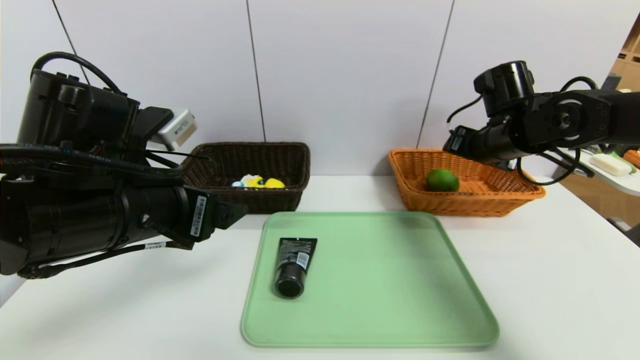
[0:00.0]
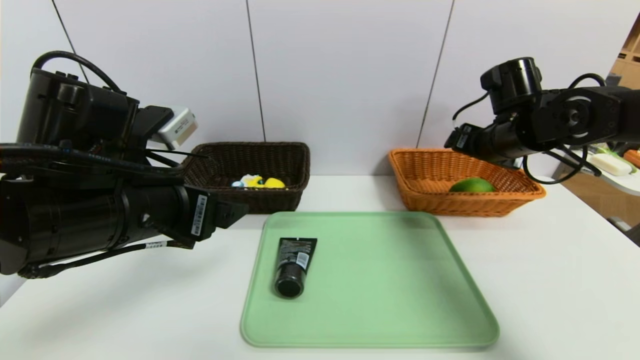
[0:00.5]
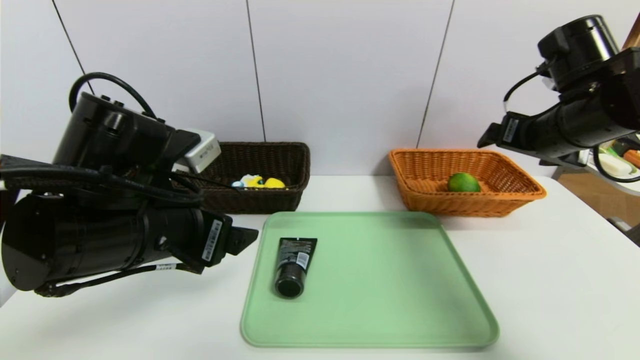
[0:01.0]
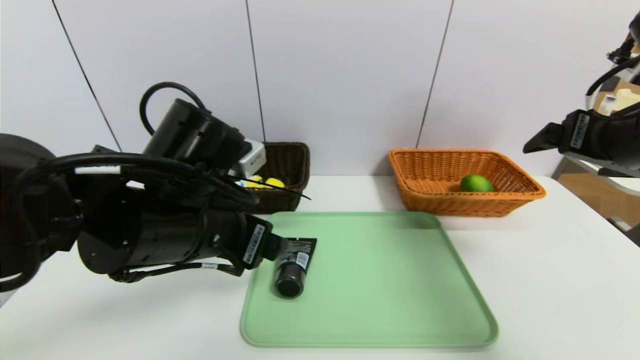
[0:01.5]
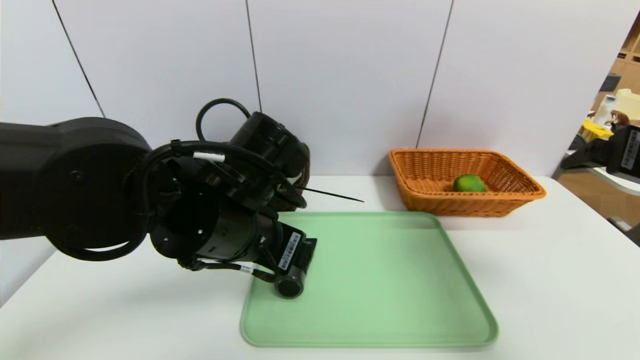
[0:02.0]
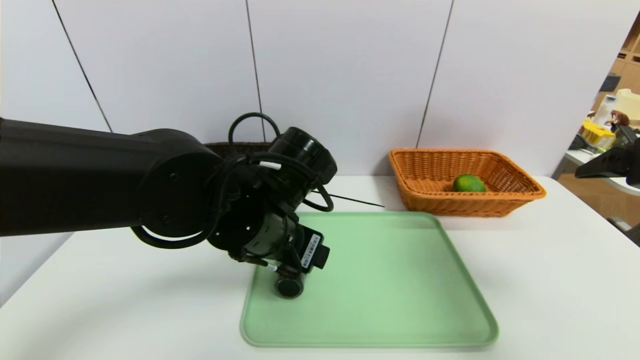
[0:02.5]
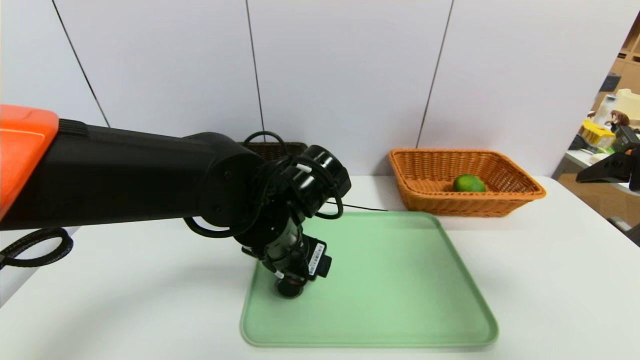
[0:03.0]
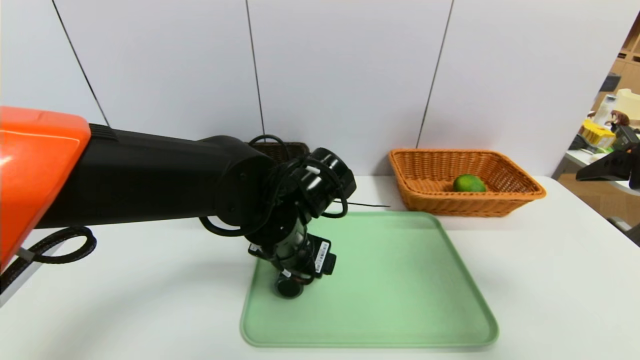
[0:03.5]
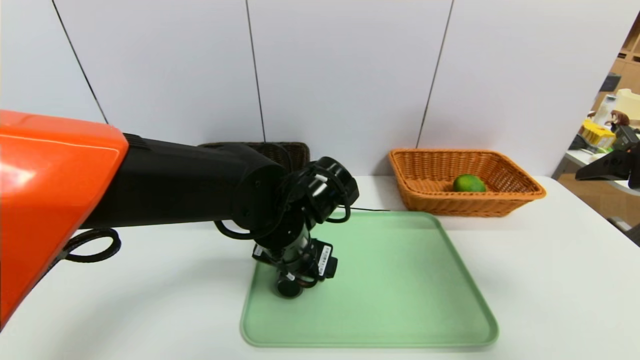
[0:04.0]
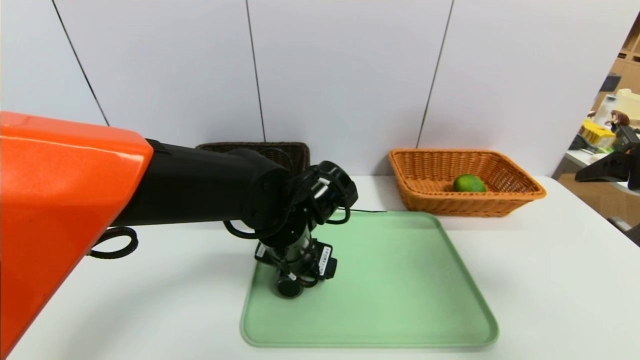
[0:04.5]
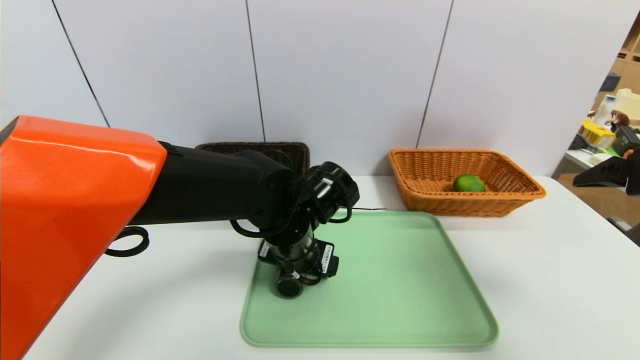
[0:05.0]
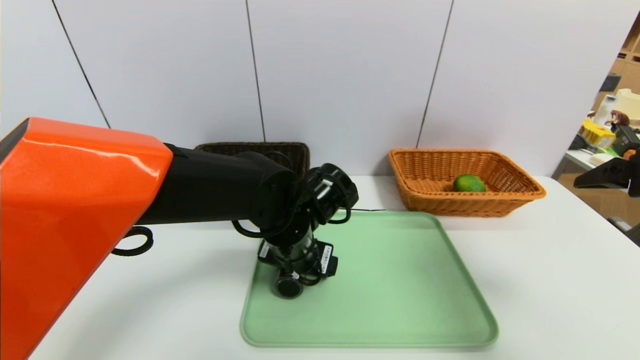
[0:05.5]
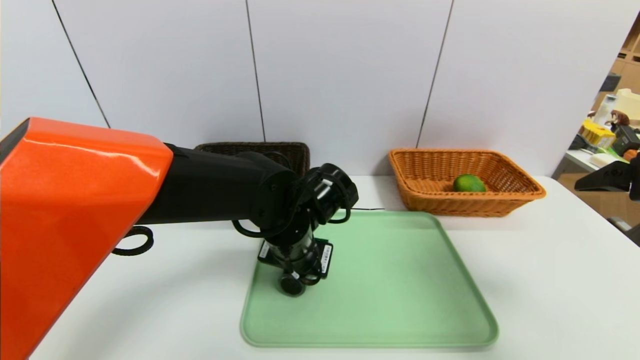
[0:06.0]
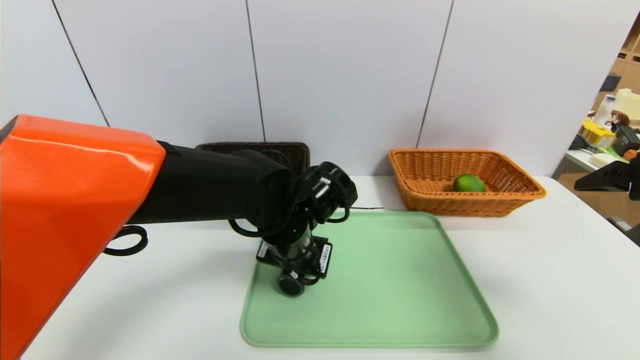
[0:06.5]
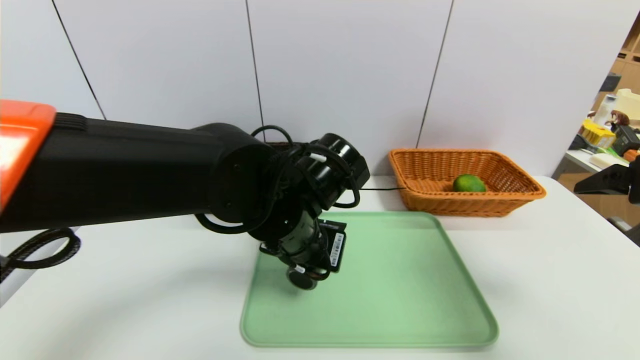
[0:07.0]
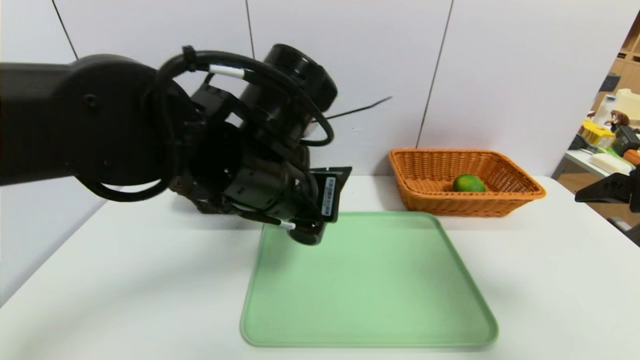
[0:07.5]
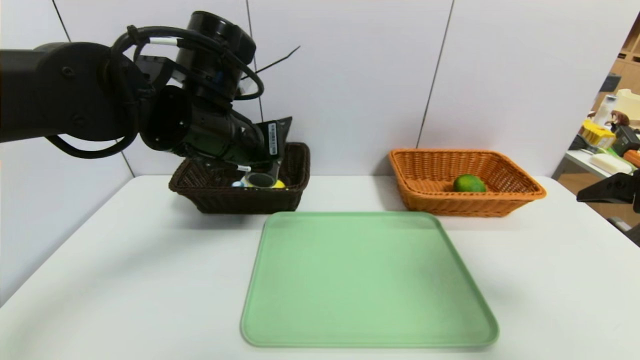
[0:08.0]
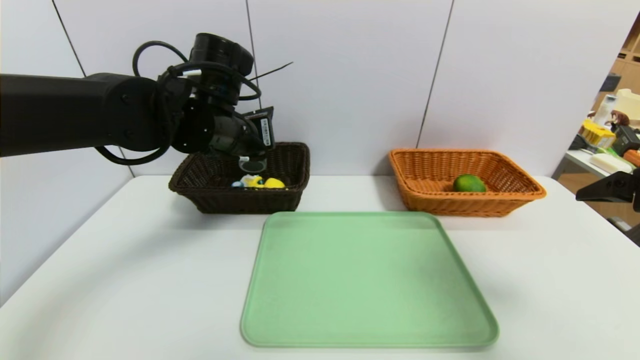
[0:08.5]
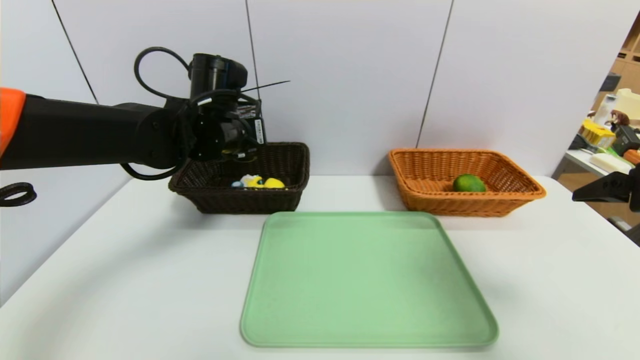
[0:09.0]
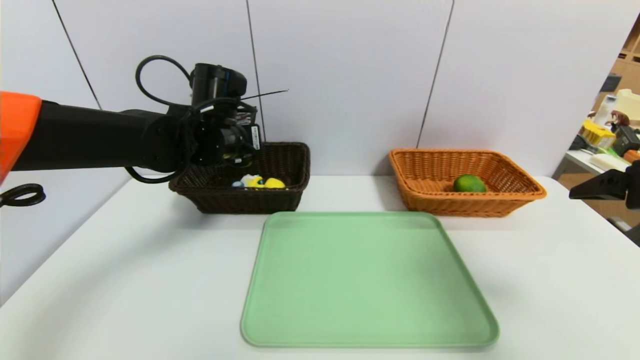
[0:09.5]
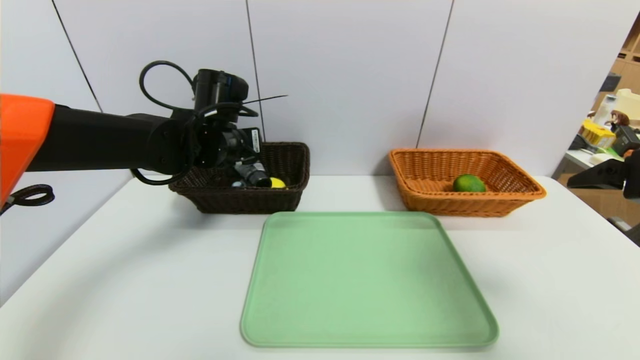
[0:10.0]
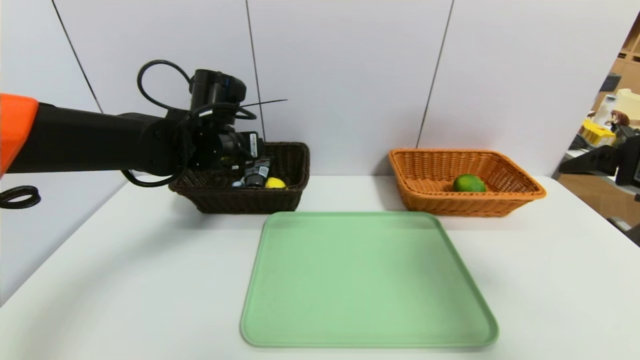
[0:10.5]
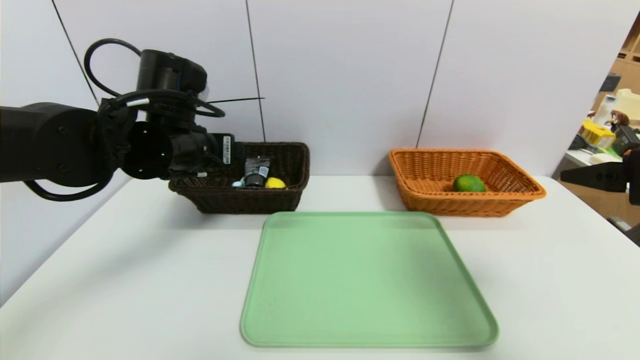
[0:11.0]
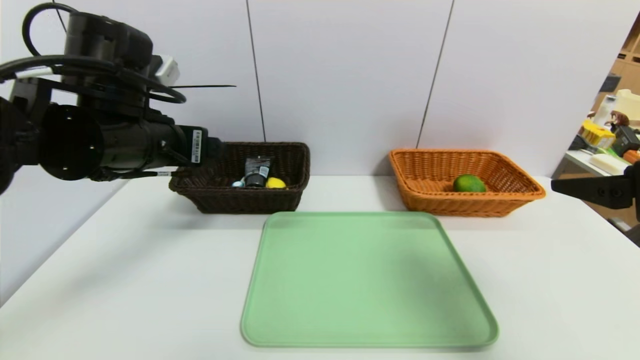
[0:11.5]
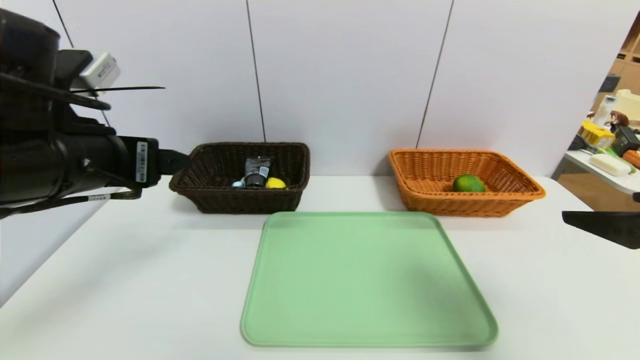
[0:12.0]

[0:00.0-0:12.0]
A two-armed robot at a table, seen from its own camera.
Task of the whole recording: place the food in the right basket with the right gripper, and place the non food items in the left basket with the left gripper.
Step, 0:00.5 to 0:10.0: Grasp the soft cleanser and put it in the left basket.
0:00.0 to 0:02.0: The right gripper goes some 20 cm backward, and opens up, while the left gripper goes roughly 10 cm to the right.
0:02.0 to 0:04.0: The left gripper travels downward by about 5 cm.
0:04.0 to 0:06.0: The left gripper closes.
0:06.0 to 0:08.0: The left gripper travels upward and to the left by about 15 cm.
0:08.0 to 0:10.0: The left gripper heads forward and downward, covering some 10 cm, and opens up.
0:10.0 to 0:12.0: The left gripper moves backward, some 20 cm.

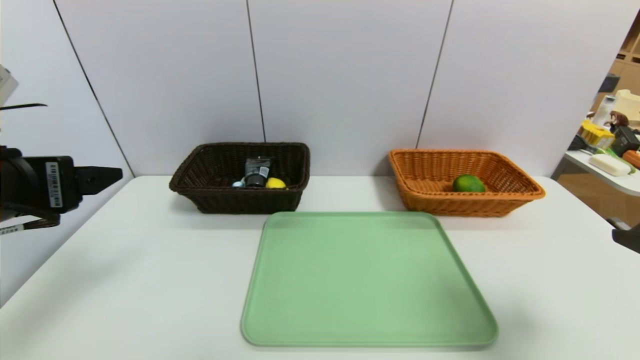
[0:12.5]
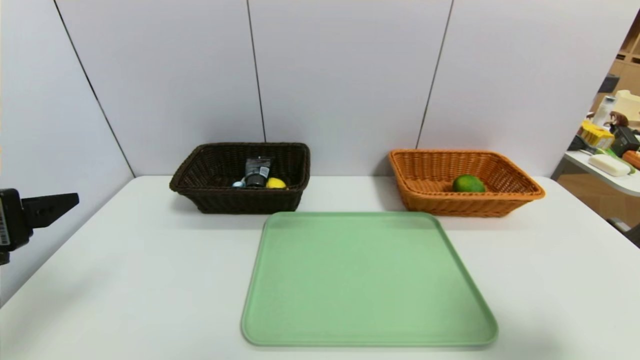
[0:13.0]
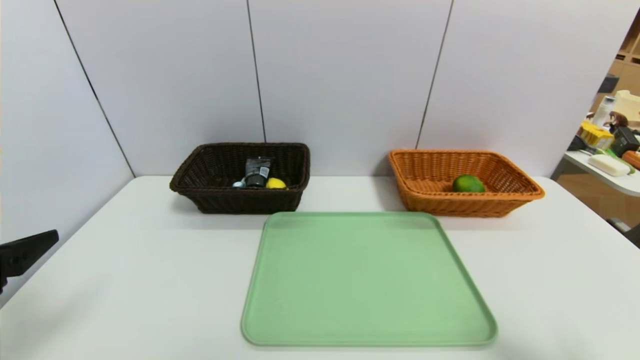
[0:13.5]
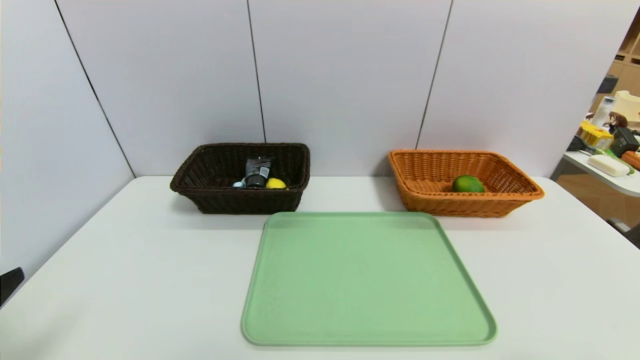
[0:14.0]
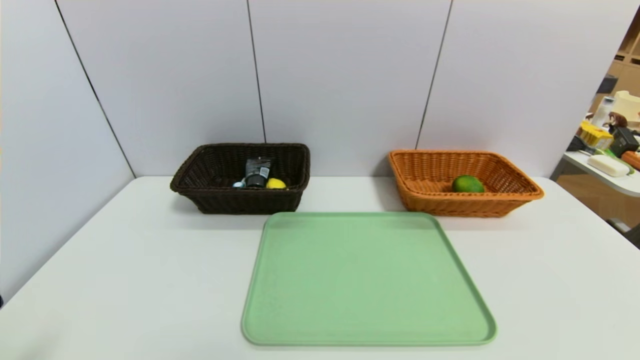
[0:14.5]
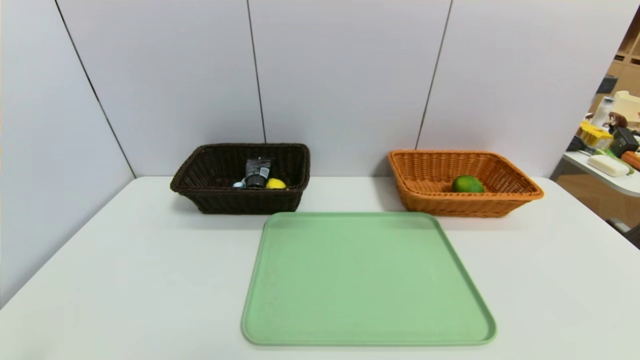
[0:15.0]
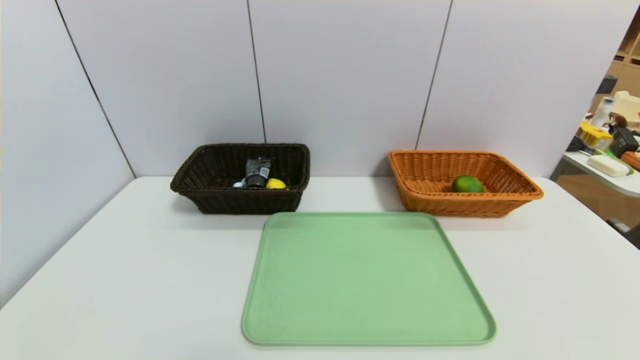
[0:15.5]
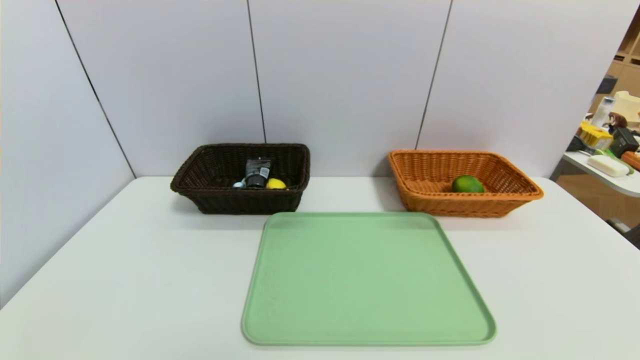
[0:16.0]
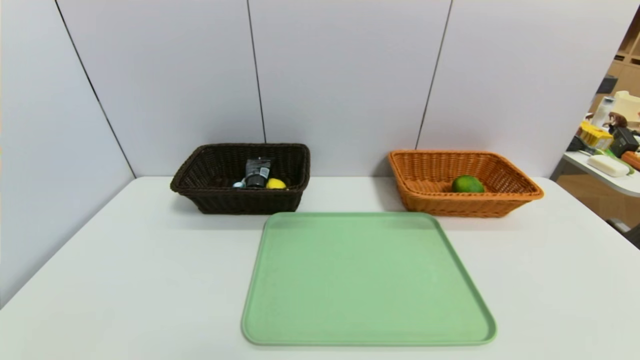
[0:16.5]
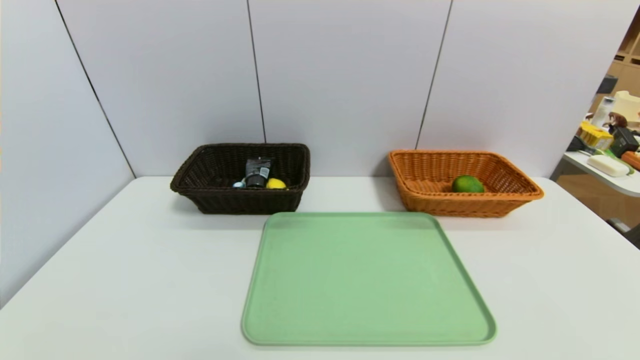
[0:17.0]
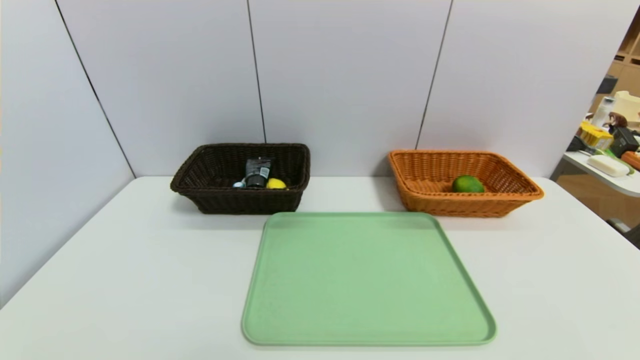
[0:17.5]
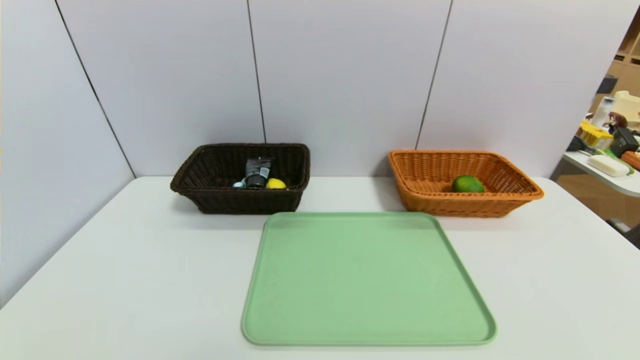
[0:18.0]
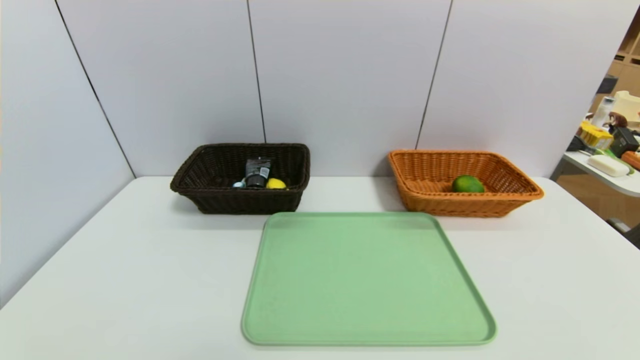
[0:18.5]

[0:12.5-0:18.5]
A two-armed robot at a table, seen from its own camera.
Task of the whole recording: place the food in the right basket with the right gripper, and place the non food items in the left basket with the left gripper.
0:12.5 to 0:14.5: The grippers both shift backward and downward by approximately 15 cm.
